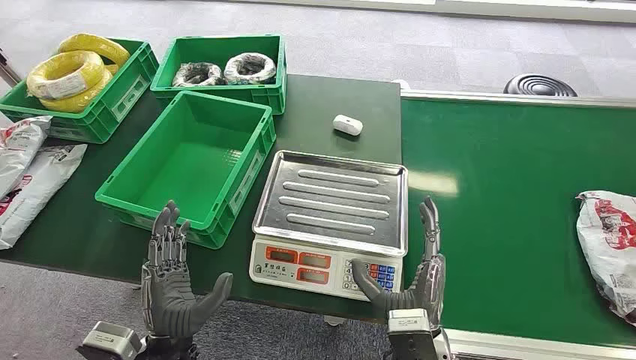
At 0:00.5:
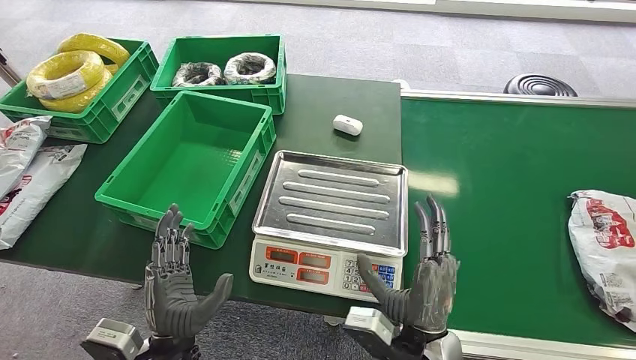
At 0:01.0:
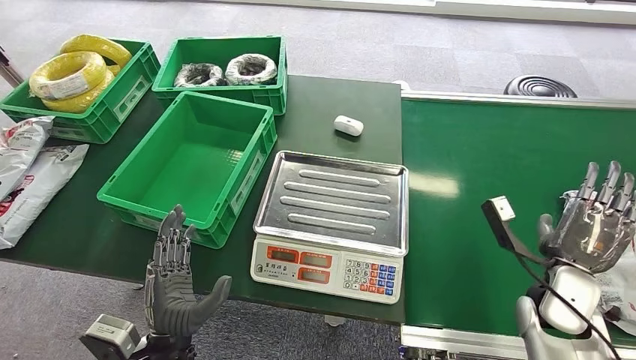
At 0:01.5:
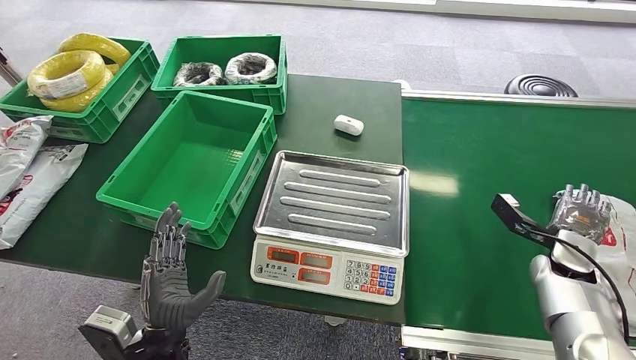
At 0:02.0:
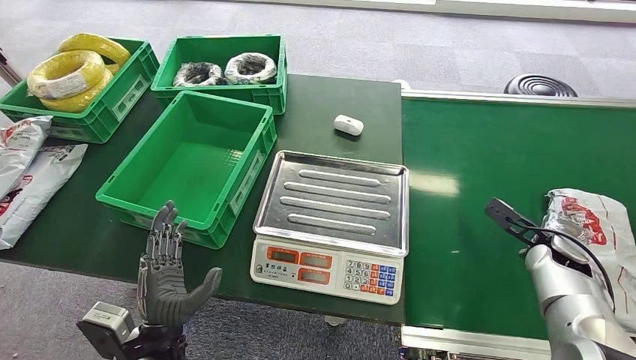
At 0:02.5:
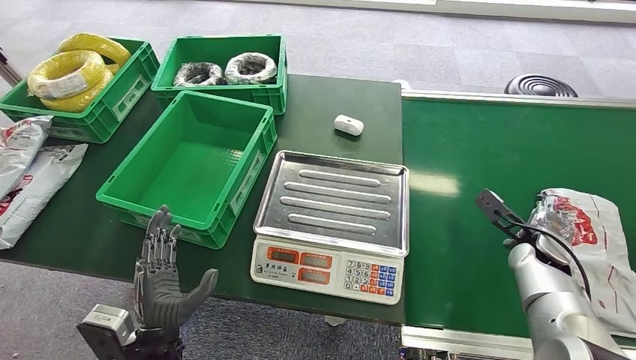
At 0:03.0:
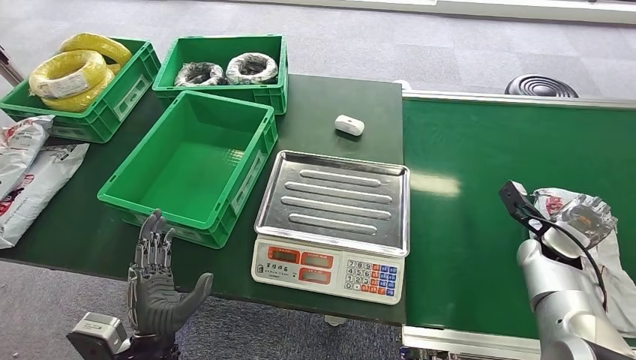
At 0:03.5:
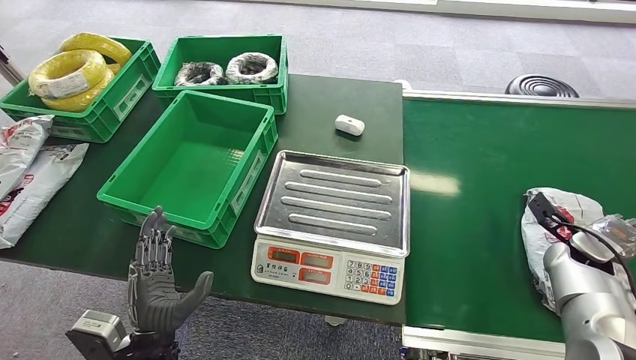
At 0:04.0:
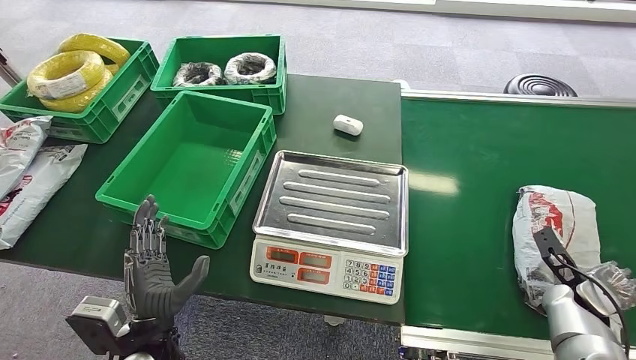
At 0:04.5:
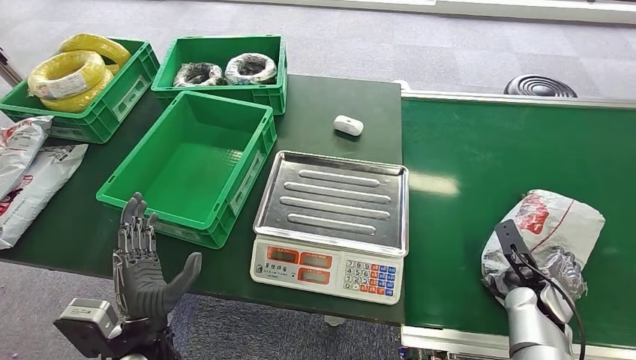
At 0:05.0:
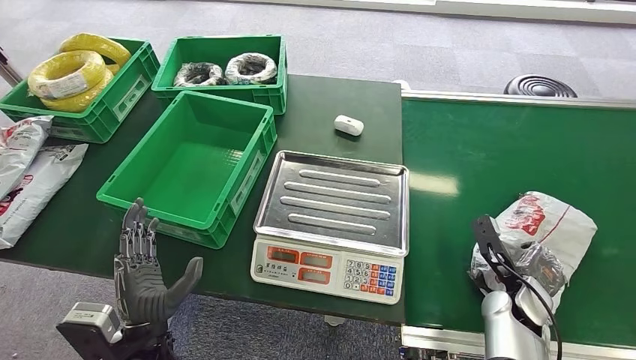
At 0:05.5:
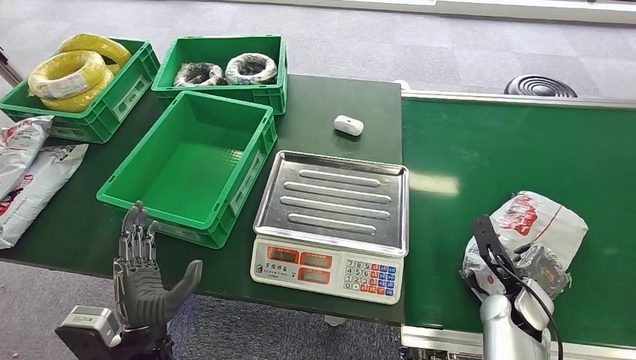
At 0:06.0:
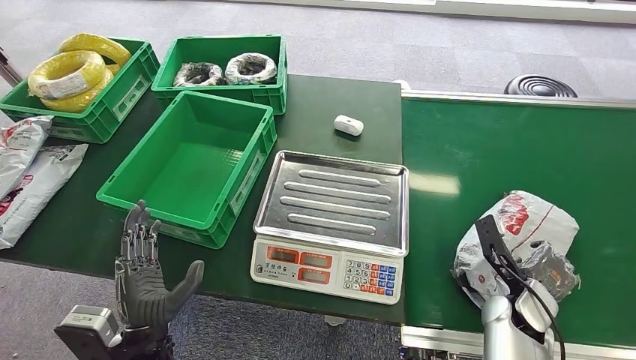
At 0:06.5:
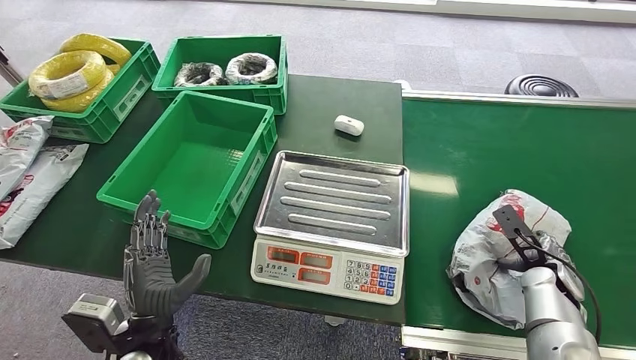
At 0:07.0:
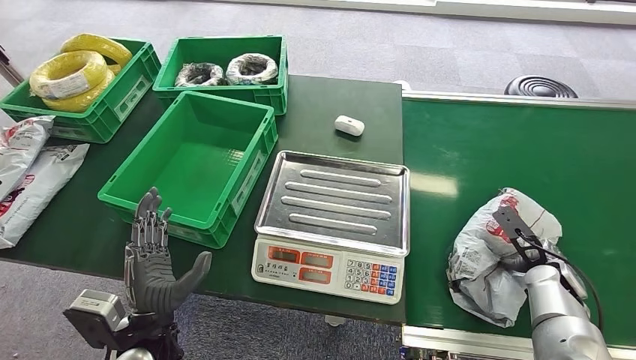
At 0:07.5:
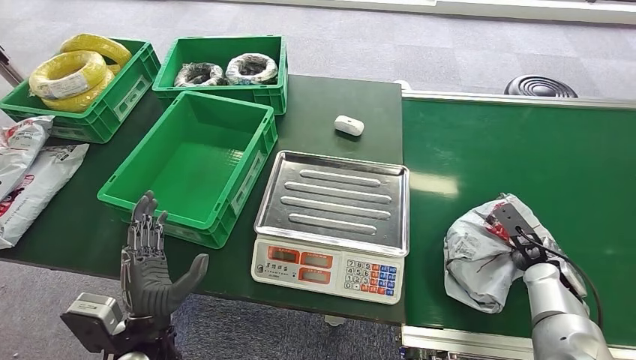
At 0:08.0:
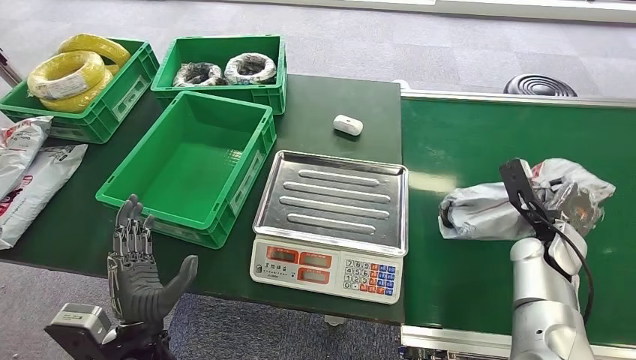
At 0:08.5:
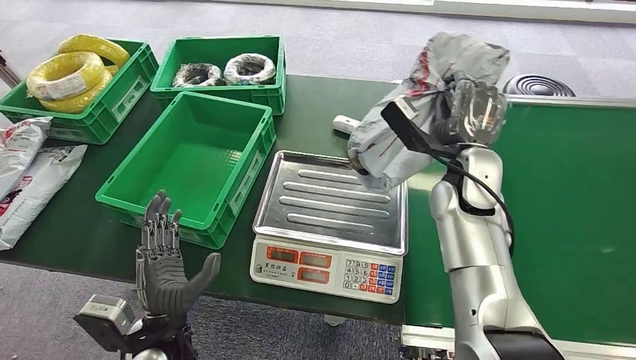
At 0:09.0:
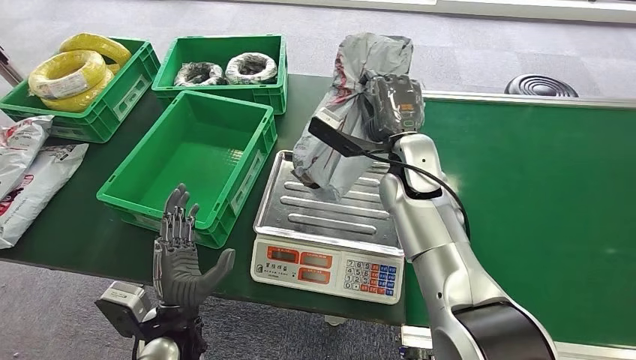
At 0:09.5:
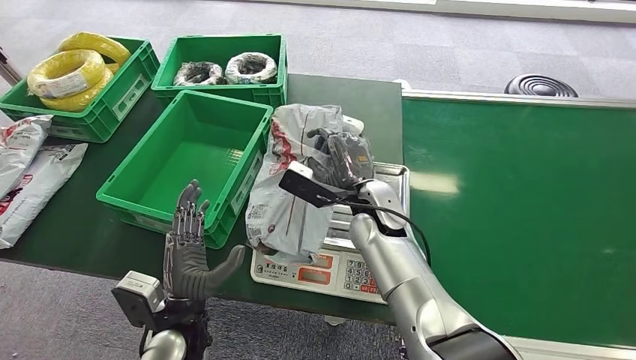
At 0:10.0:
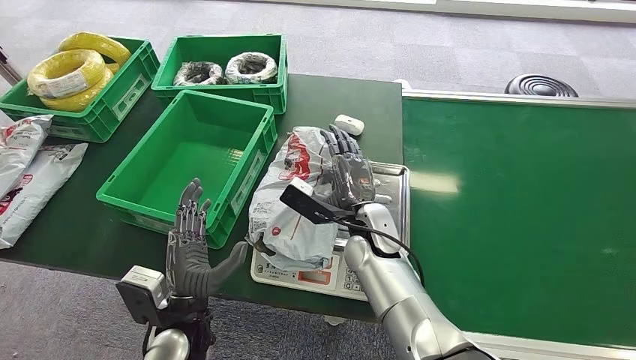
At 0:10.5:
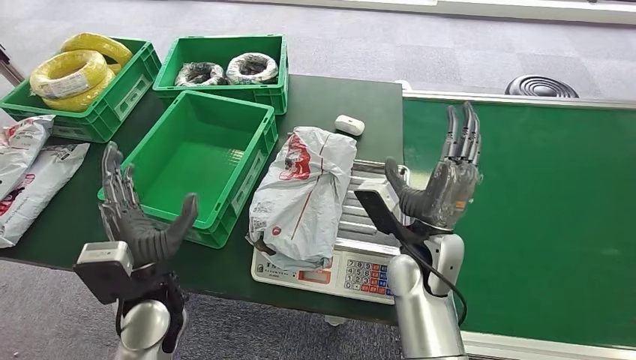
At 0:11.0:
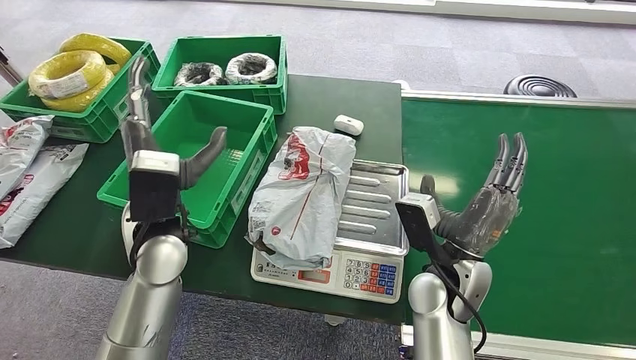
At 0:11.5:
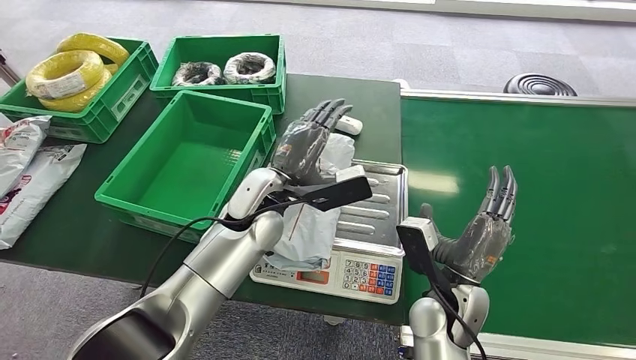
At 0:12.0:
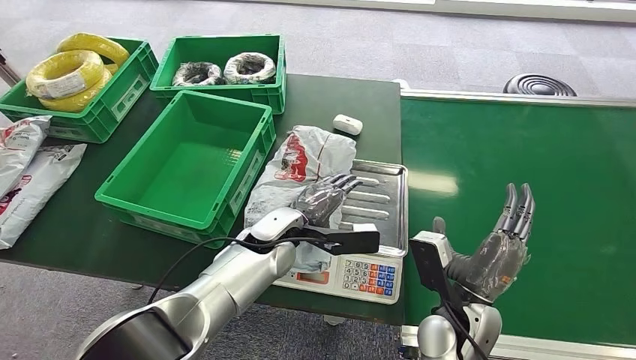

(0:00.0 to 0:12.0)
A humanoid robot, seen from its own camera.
Step, 0:00.0 - 0:08.0: Pick up the package from the conveyor belt.
Step, 0:08.5 - 0:10.0: Place the package onto the inbound machine.
0:02.0 - 0:04.0: The right hand heads backward, covering about 5 cm.
0:04.0 - 0:06.0: The right hand travels to the left by some 15 cm.
0:06.0 - 0:08.0: The right hand shifts about 10 cm forward, to the right and upward.
0:10.0 - 0:12.0: The left hand is displaced forward and to the right by some 20 cm. The right hand goes about 15 cm backward and to the right.

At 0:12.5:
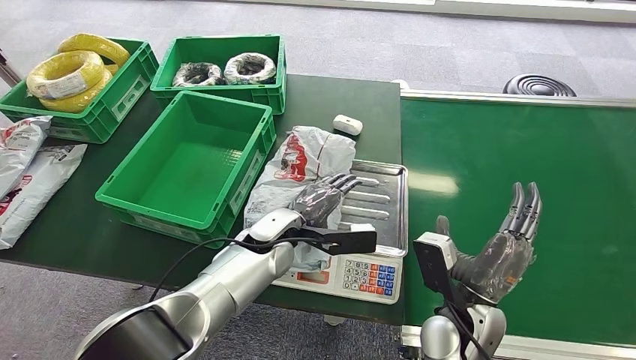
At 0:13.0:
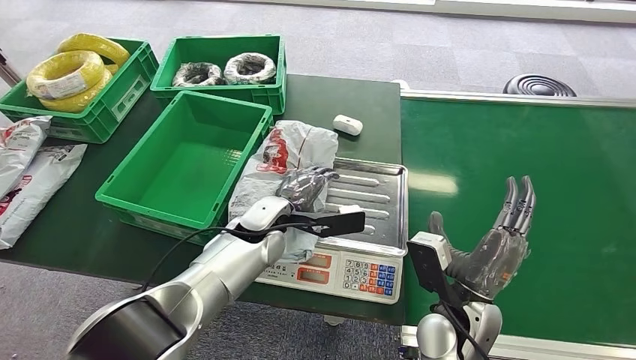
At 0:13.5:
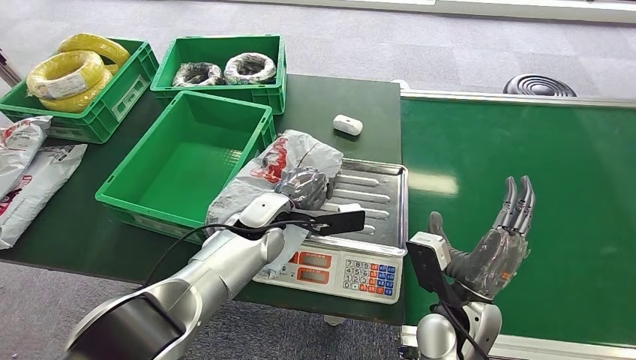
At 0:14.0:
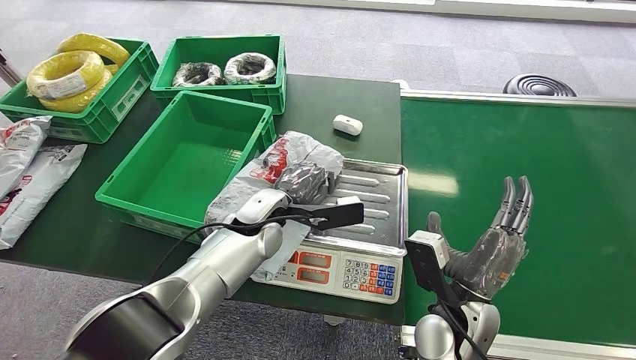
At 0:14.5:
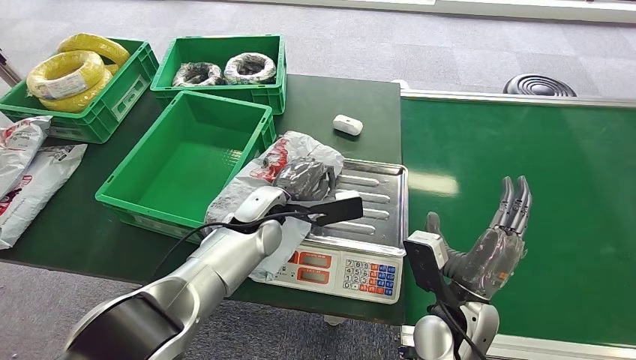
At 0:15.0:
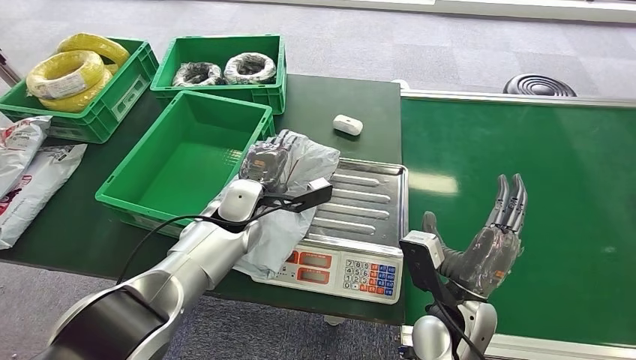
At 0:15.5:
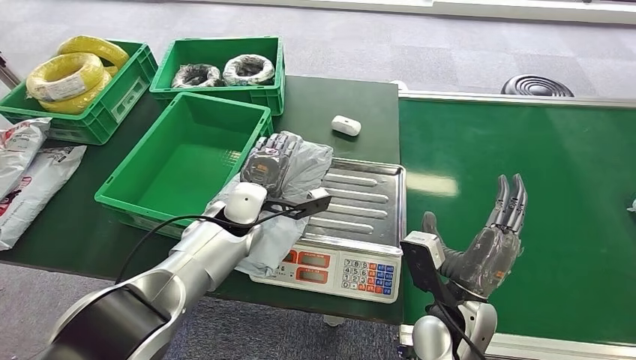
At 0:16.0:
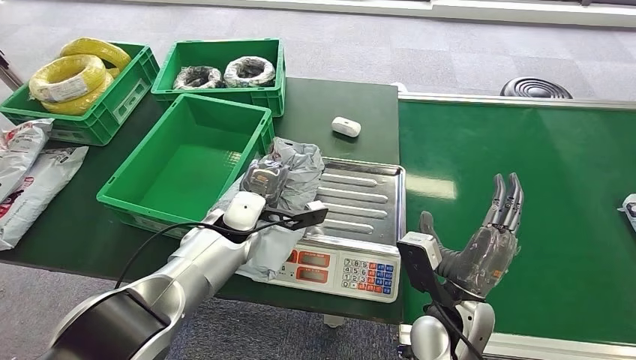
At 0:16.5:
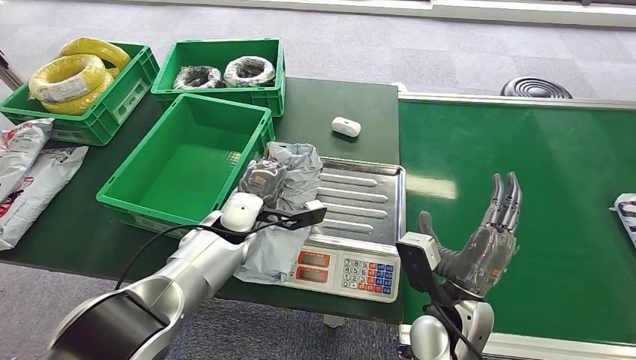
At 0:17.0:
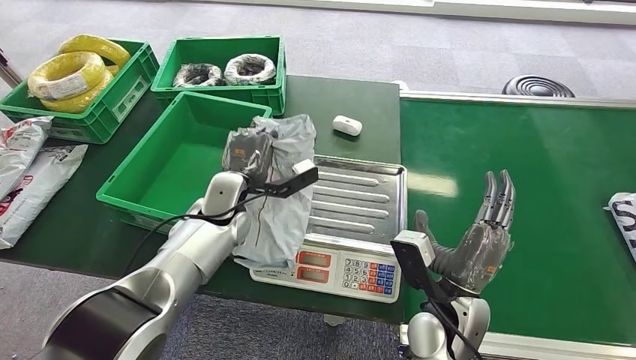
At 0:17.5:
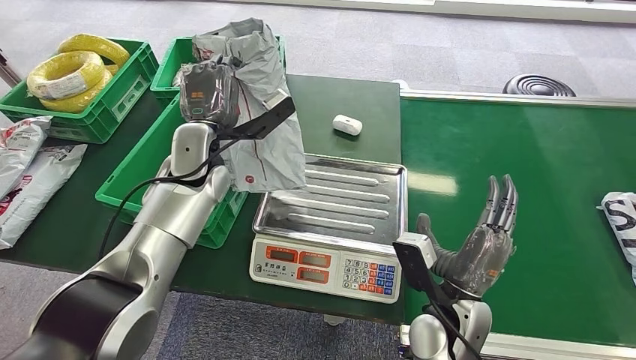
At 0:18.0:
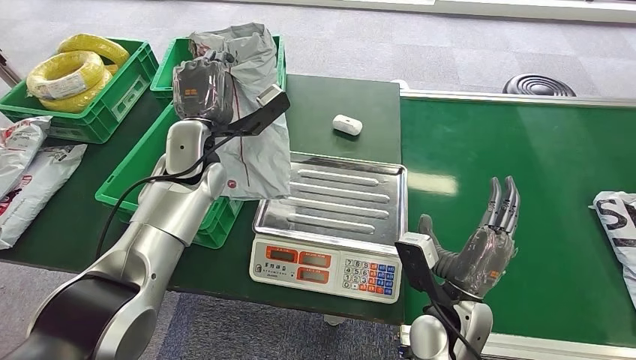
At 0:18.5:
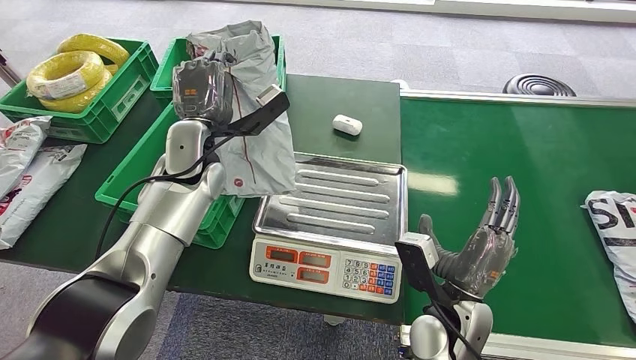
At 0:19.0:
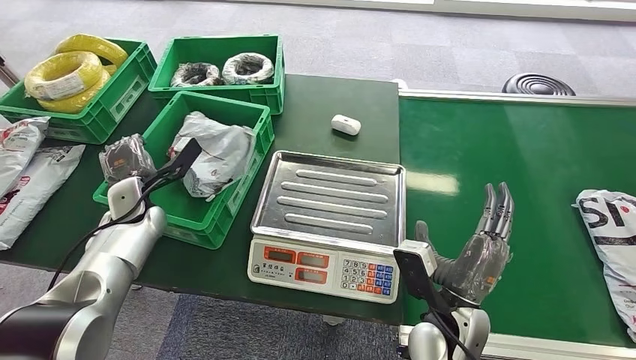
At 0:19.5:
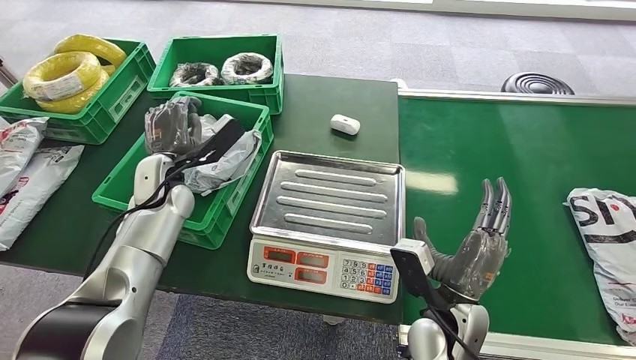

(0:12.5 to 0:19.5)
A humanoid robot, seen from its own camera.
Step, 0:12.5 - 0:17.5: Pick up the package from the inbound machine.
Step, 0:18.0 - 0:19.5: Place the package into the parcel locker.
0:12.5 - 0:14.5: There are only small adjustments of the hands.
